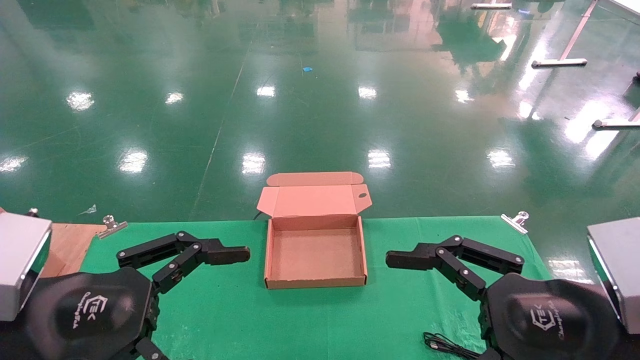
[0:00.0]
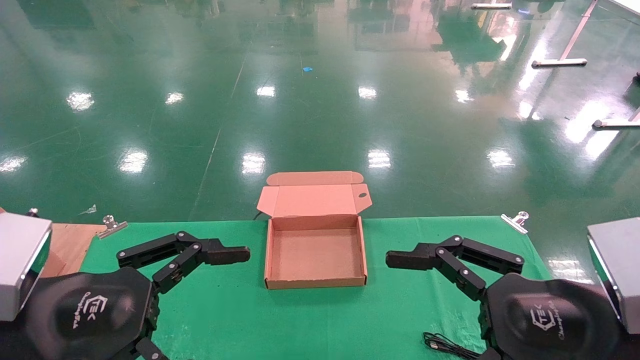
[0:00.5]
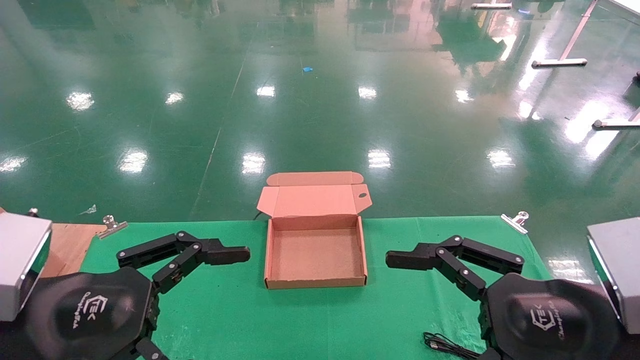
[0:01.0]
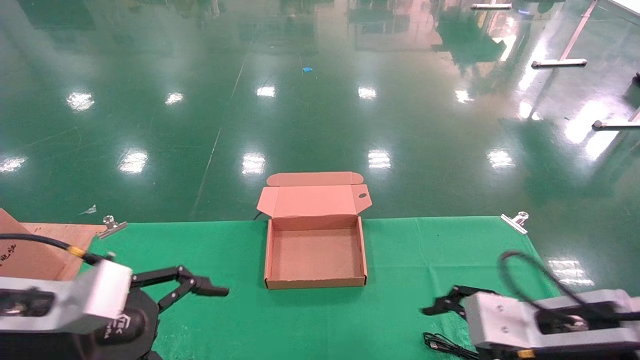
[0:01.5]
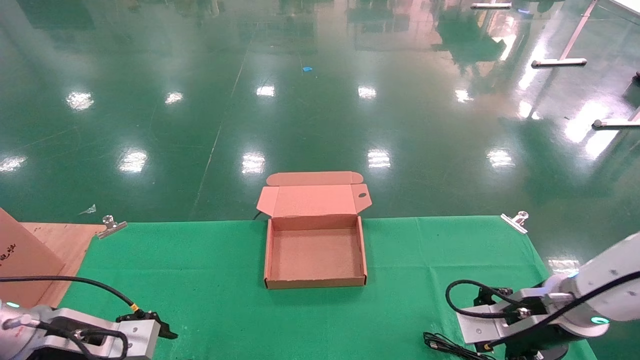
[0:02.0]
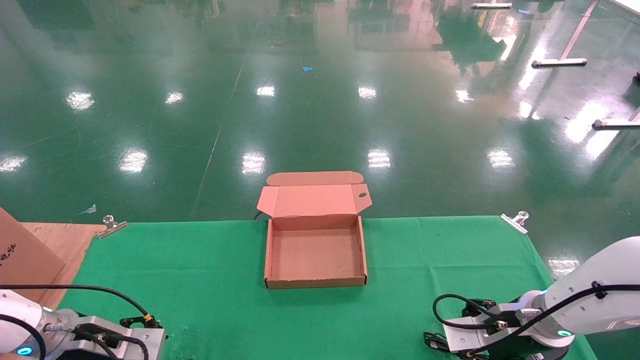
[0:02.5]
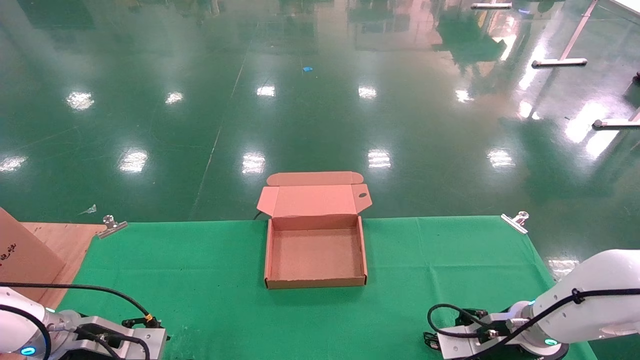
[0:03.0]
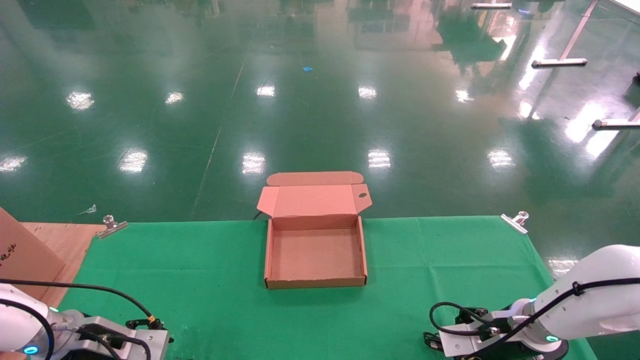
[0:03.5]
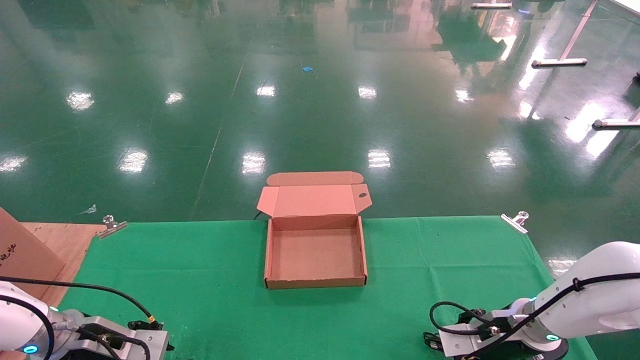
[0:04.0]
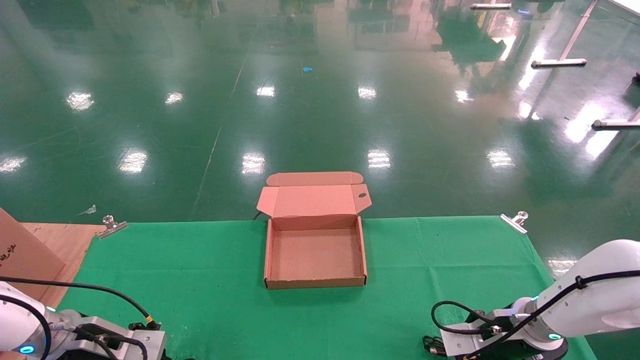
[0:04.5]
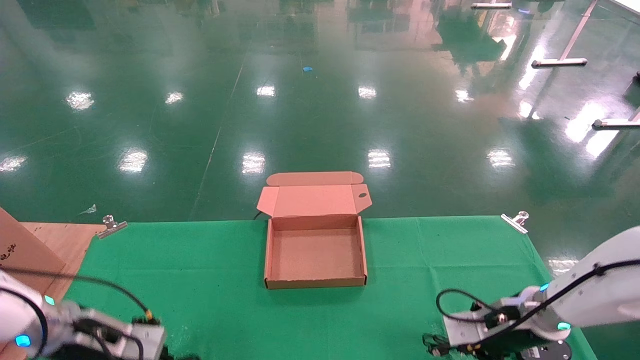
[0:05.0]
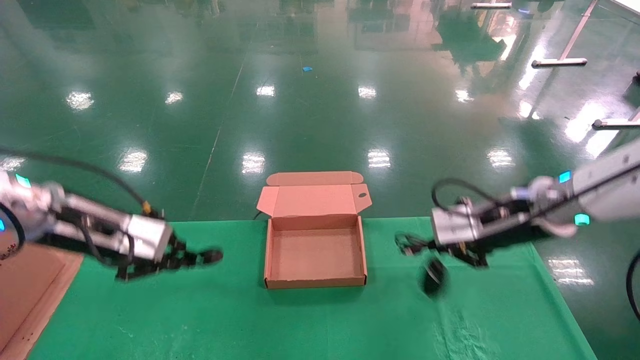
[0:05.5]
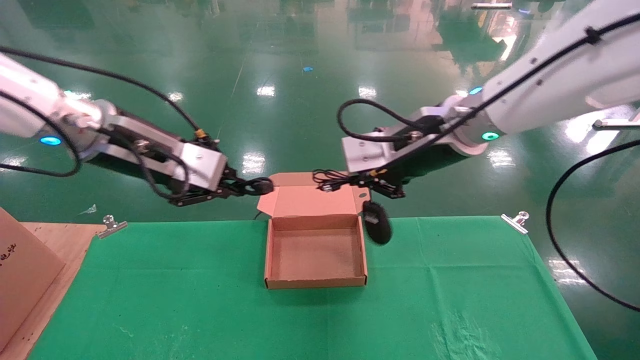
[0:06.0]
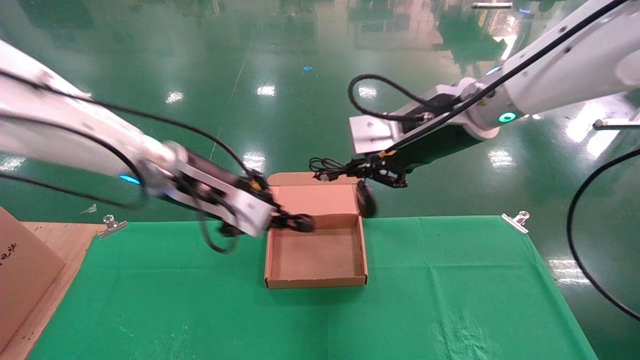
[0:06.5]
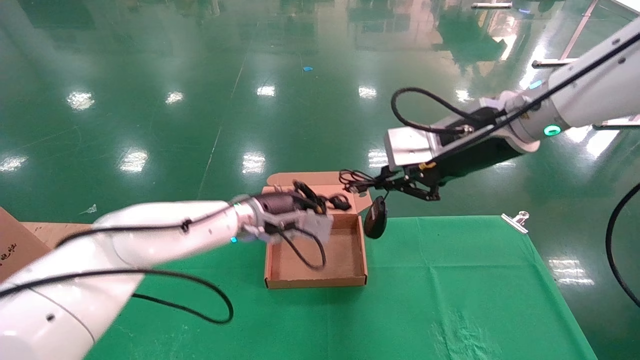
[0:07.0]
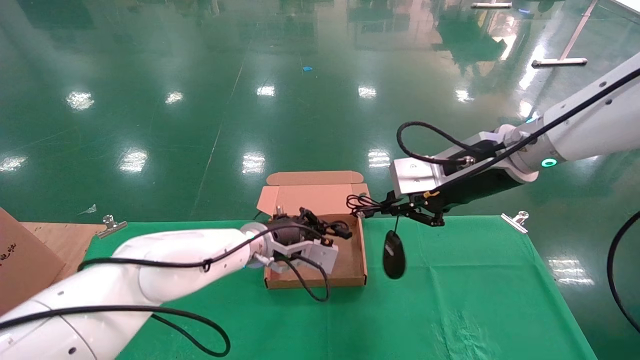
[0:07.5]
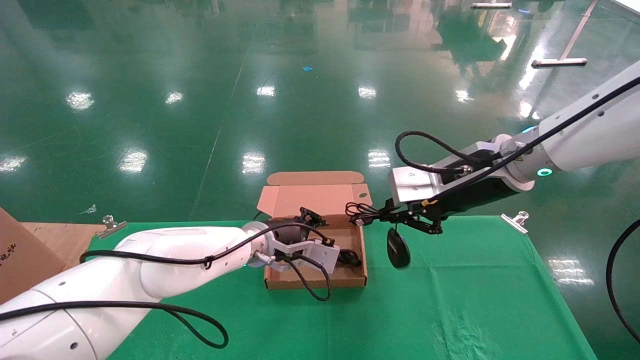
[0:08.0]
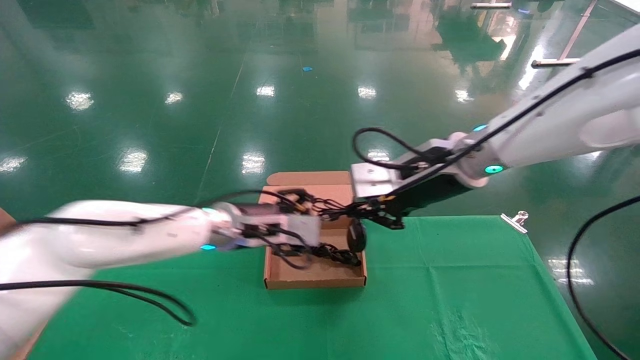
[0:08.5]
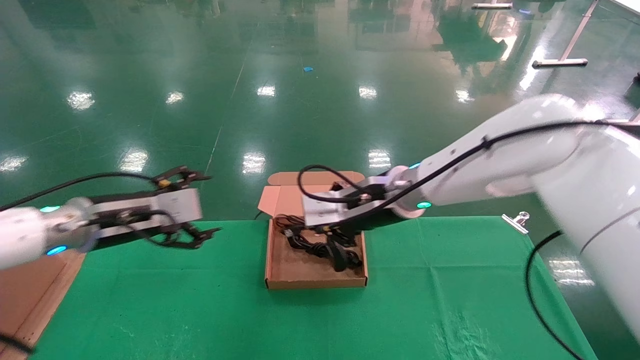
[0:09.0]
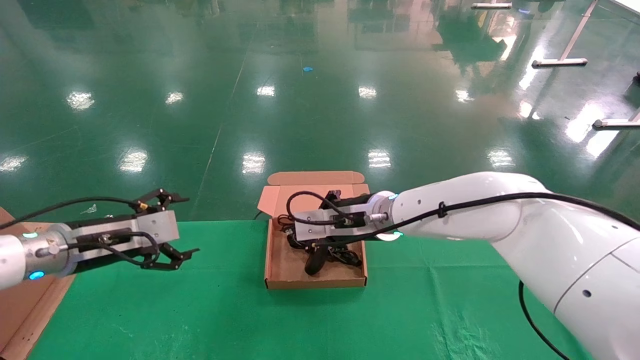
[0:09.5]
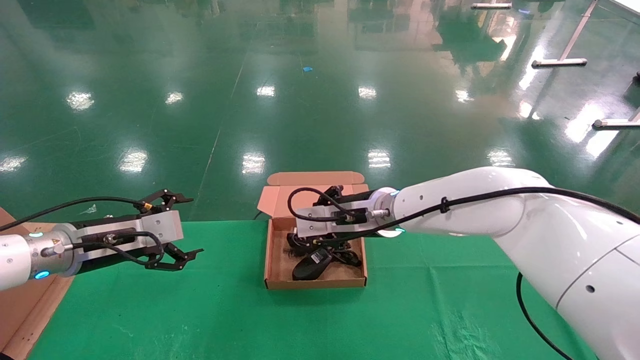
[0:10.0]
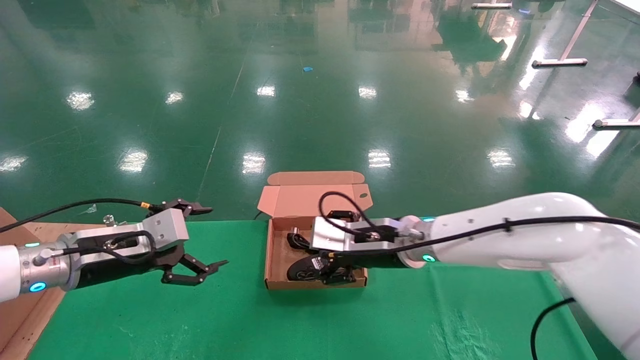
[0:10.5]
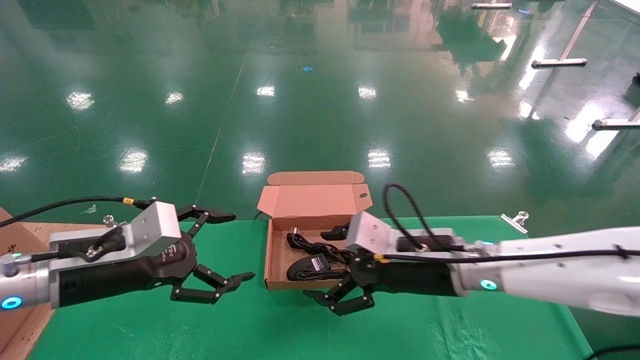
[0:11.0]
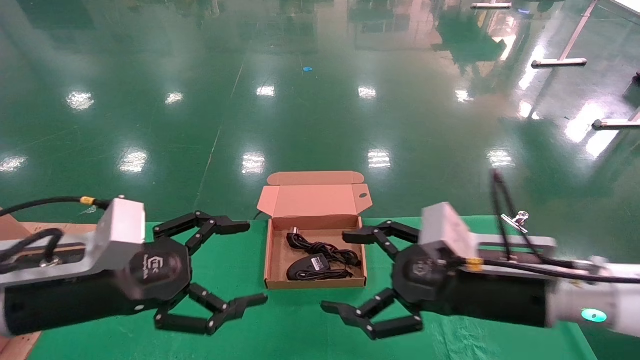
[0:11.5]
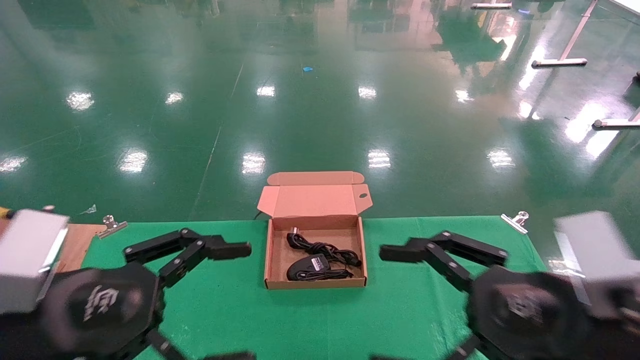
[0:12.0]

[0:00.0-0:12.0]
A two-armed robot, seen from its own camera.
Step, 0:01.5 to 0:05.0: Grab and lift both the mouse and power cord from the accessory packaging area at the same time.
Step, 0:05.5 to 0:09.5: Place the mouse and power cord into the box.
0:00.0 to 0:02.0: The left gripper moves forward, downward and to the left, roughly 20 cm; the right gripper moves forward and downward, about 20 cm.
0:02.0 to 0:04.0: The left gripper goes about 5 cm forward and downward. Meanwhile the right gripper travels downward and forward by some 10 cm.
0:04.0 to 0:06.0: The right gripper shifts some 30 cm upward and to the left, and closes its fingers. Meanwhile the left gripper shifts roughly 30 cm upward and to the right, and closes its fingers.
0:06.0 to 0:08.0: The left gripper goes roughly 25 cm downward, to the right and forward. Meanwhile the right gripper ends up about 5 cm from where it was.
0:08.0 to 0:10.0: The right gripper goes roughly 20 cm to the left, downward and forward. Meanwhile the left gripper heads to the left, covering some 25 cm, and opens up.
0:10.0 to 0:12.0: The left gripper goes approximately 20 cm backward, while the right gripper travels backward and to the right by roughly 30 cm, and opens its fingers.
